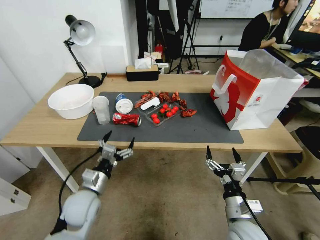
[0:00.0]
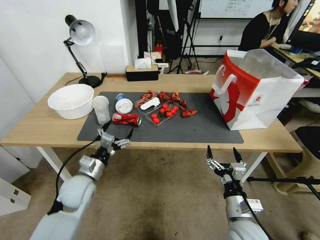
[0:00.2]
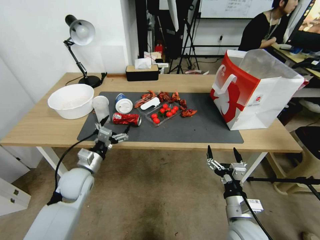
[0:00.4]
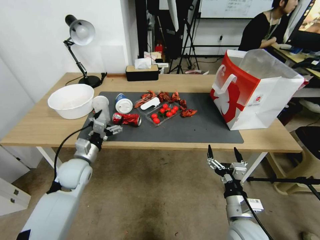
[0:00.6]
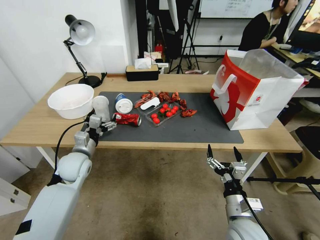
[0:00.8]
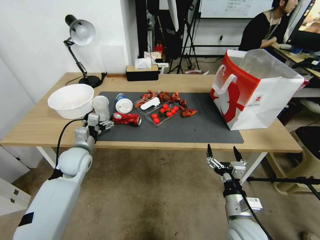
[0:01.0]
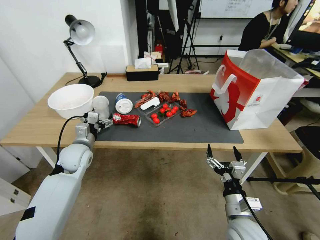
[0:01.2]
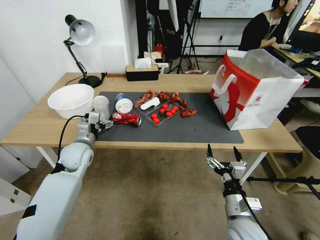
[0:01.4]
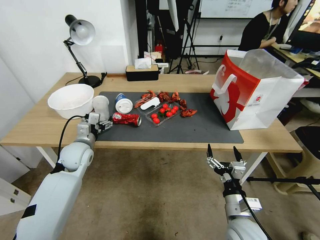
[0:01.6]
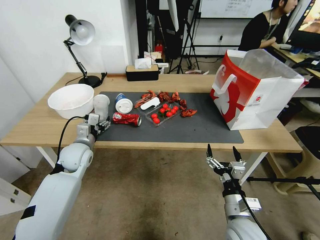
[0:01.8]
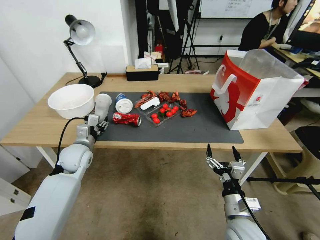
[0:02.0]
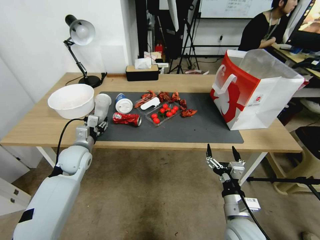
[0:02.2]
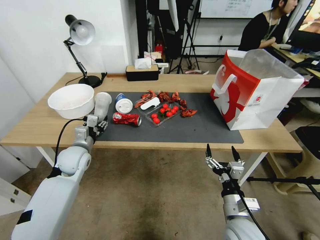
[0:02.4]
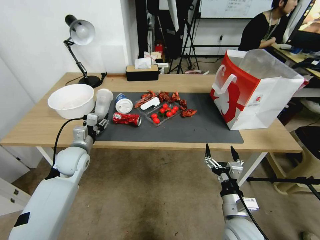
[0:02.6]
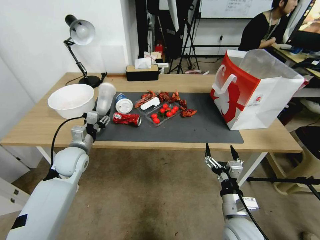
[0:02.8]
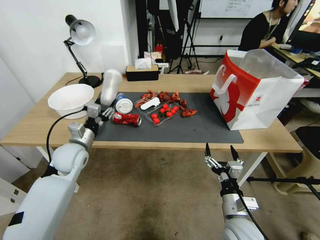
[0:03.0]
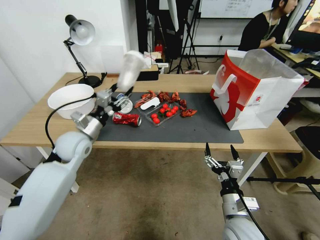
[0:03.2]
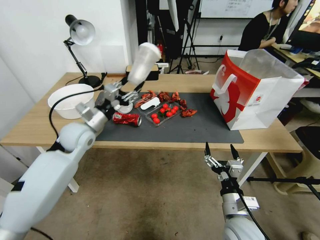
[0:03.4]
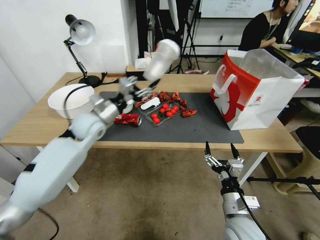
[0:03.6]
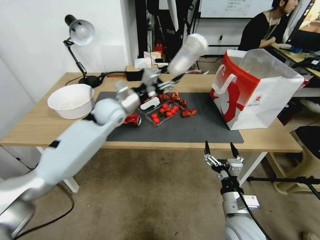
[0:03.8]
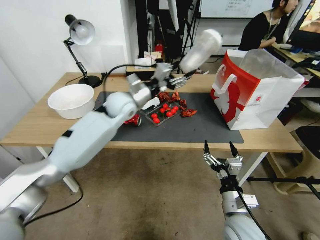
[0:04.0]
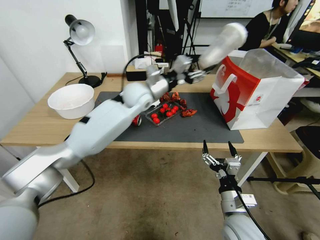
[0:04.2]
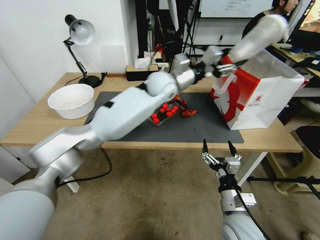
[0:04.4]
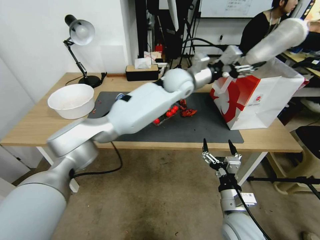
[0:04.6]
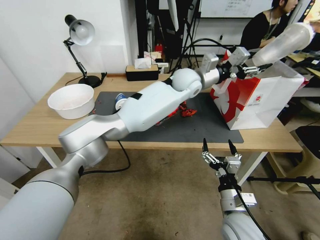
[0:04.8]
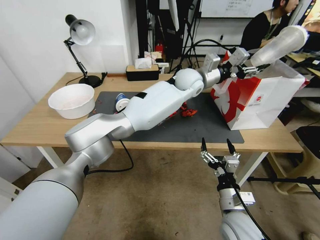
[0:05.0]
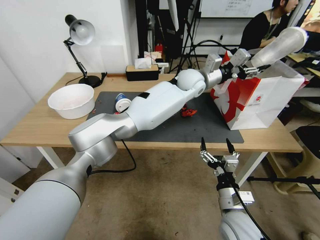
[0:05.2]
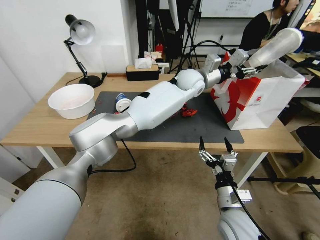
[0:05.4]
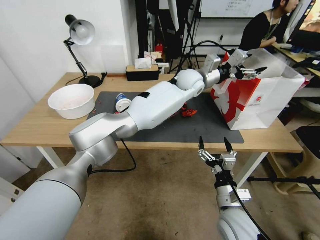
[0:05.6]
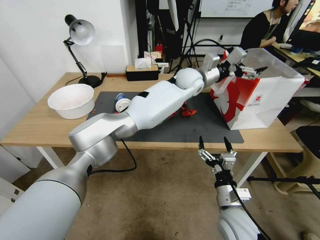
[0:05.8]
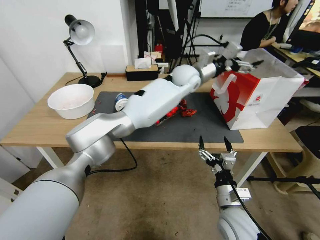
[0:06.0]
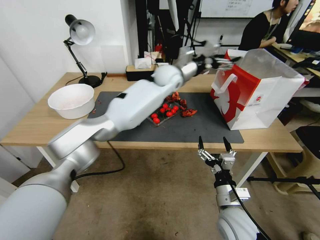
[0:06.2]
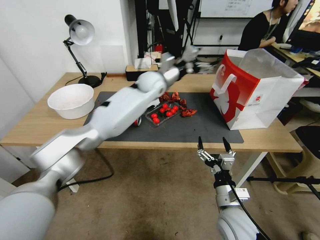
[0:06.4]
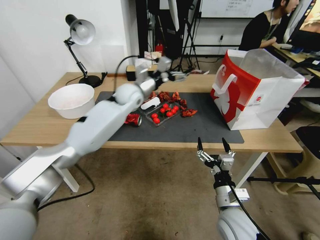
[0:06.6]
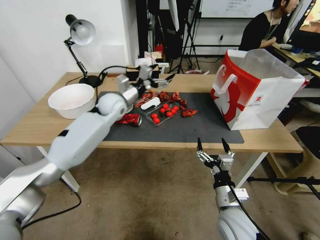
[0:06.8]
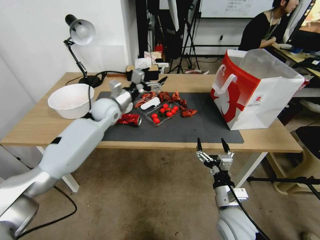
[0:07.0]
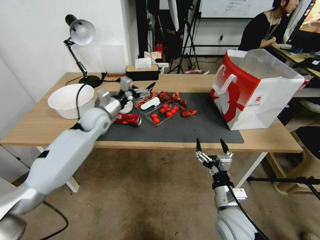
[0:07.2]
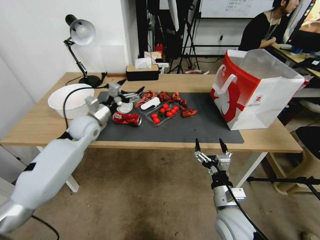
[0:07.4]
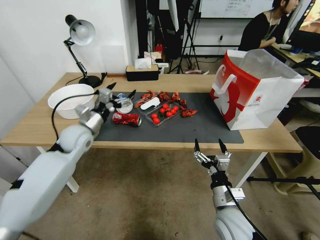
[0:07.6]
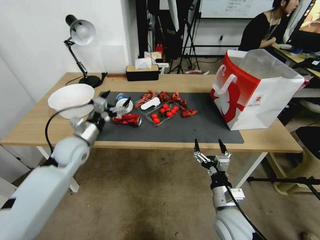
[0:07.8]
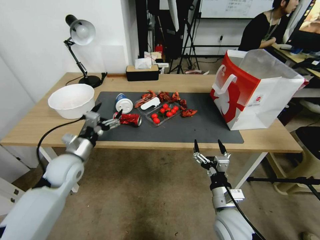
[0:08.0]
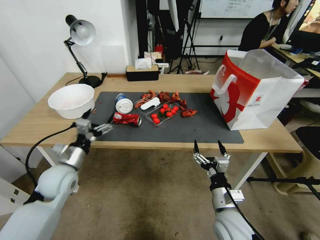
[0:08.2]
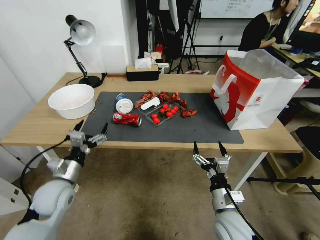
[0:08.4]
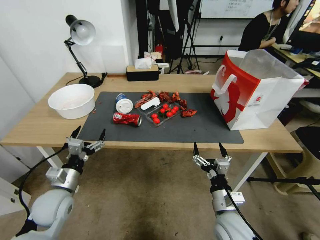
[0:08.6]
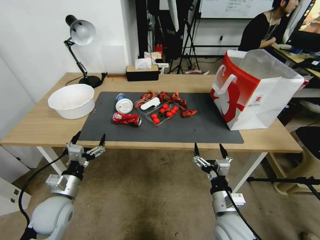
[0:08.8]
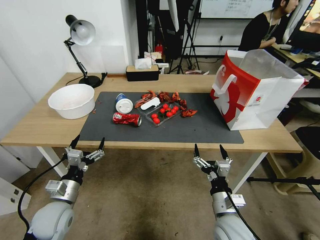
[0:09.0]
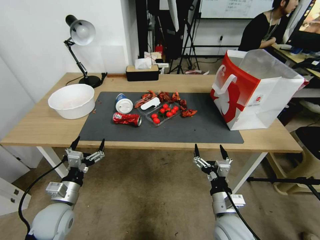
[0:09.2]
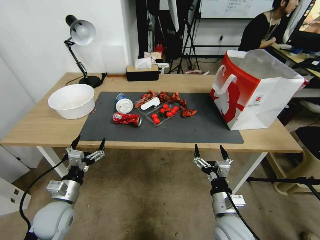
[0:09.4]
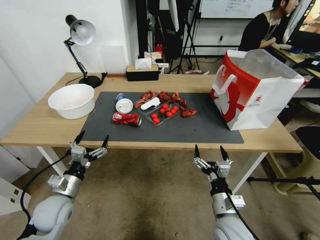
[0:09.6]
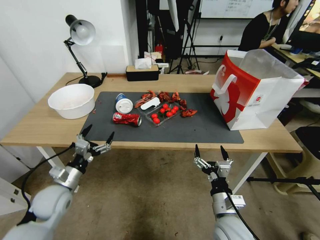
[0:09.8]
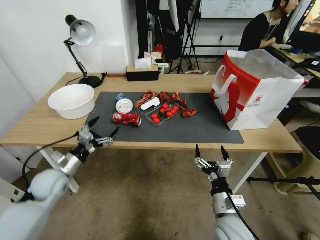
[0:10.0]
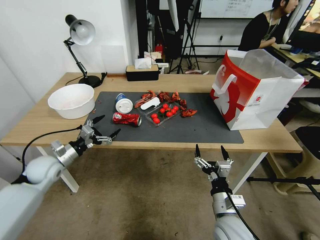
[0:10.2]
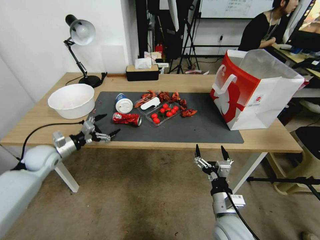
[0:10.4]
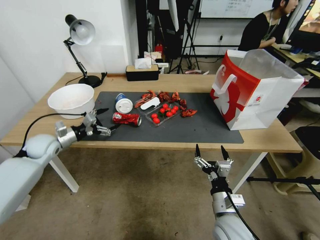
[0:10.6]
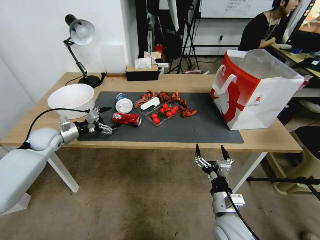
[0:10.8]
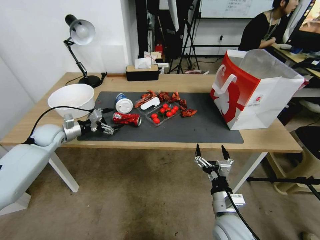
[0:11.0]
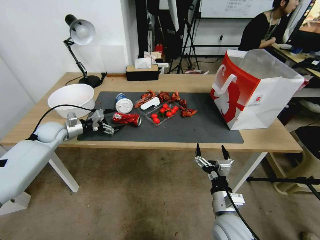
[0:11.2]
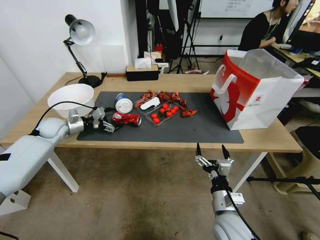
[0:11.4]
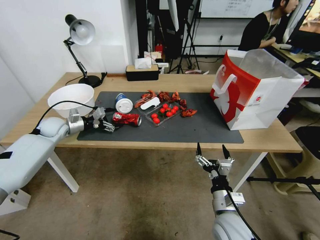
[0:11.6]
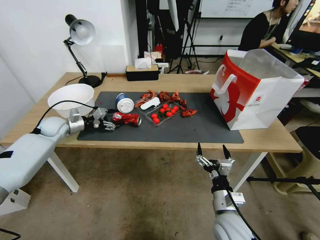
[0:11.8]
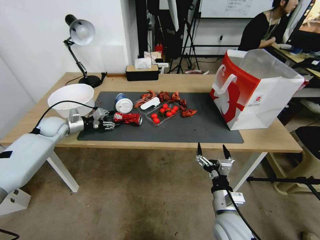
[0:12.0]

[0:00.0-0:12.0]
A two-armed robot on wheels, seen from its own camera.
0:00.0 to 0:01.6: The left gripper heads forward, covering roughly 15 cm.
0:01.6 to 0:03.0: The left gripper closes its fingers.
0:03.0 to 0:04.4: The left gripper moves to the right, upward and forward, approximately 40 cm.
0:04.4 to 0:06.0: The left gripper travels to the right by about 10 cm, and opens.
0:06.0 to 0:07.6: The left gripper is displaced to the left and backward by about 40 cm.
0:07.6 to 0:09.0: The left gripper heads backward and downward, covering some 25 cm.
0:09.0 to 0:10.4: The left gripper travels forward and to the left by approximately 20 cm.
0:10.4 to 0:12.0: The left gripper travels forward by about 10 cm, and closes up.

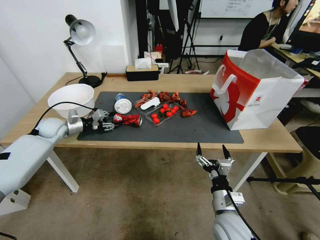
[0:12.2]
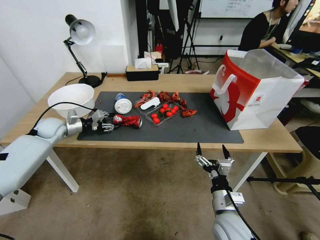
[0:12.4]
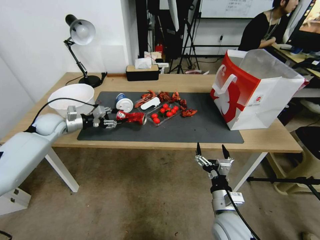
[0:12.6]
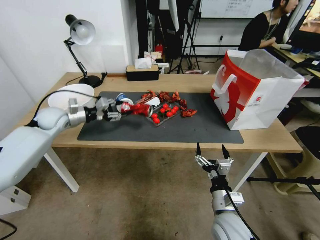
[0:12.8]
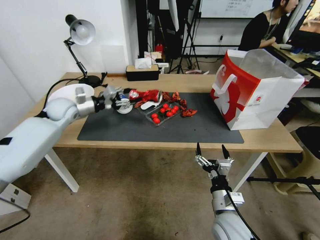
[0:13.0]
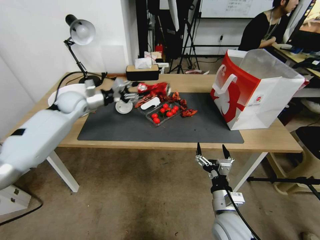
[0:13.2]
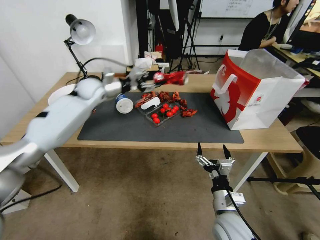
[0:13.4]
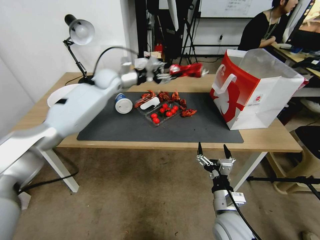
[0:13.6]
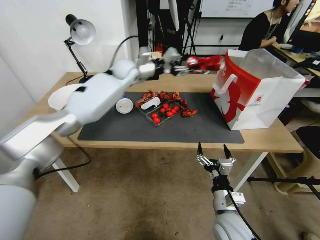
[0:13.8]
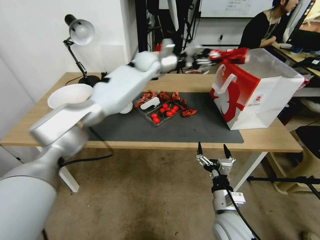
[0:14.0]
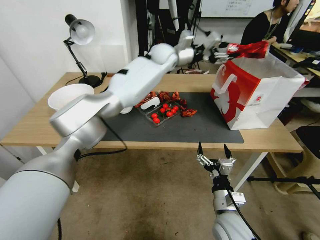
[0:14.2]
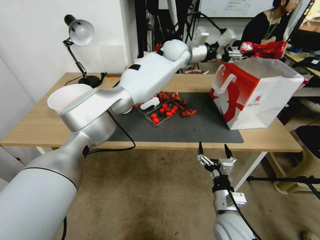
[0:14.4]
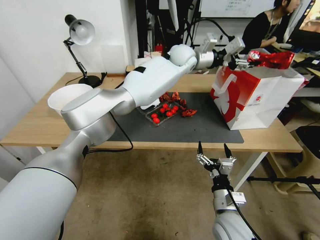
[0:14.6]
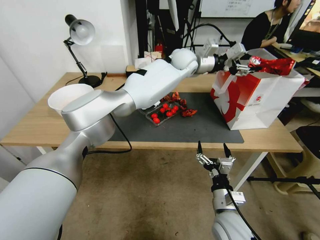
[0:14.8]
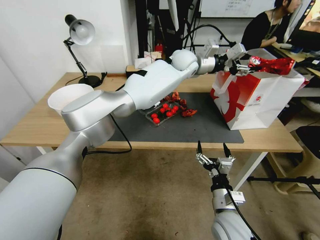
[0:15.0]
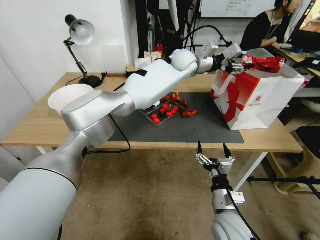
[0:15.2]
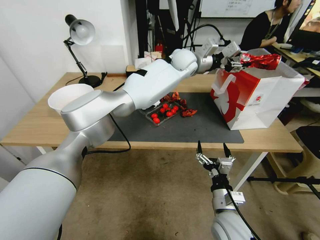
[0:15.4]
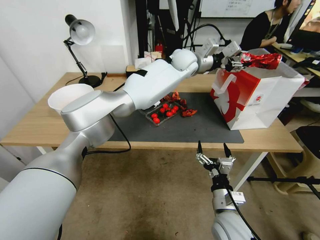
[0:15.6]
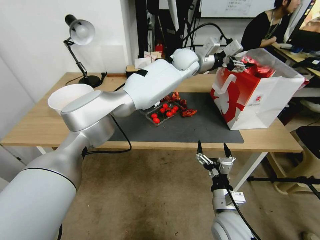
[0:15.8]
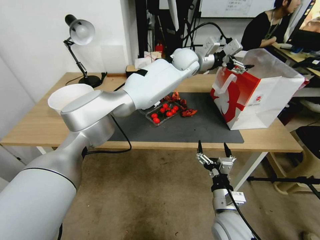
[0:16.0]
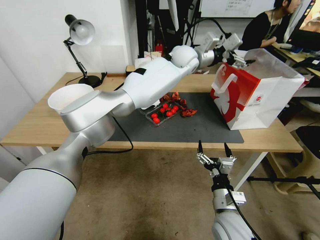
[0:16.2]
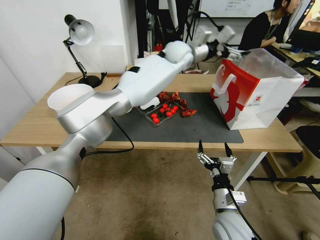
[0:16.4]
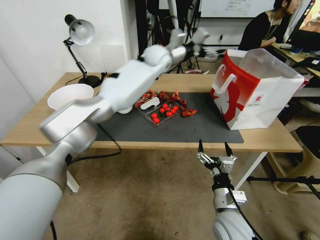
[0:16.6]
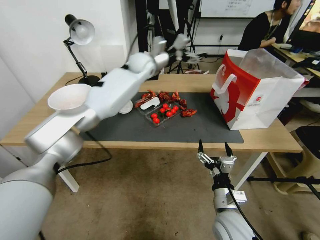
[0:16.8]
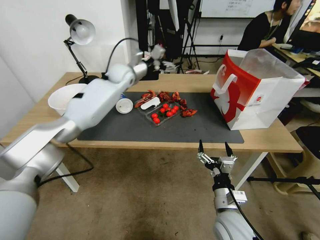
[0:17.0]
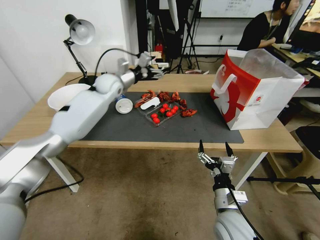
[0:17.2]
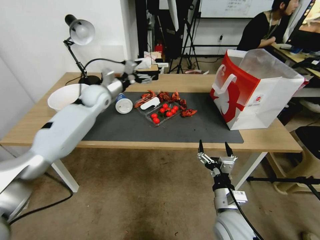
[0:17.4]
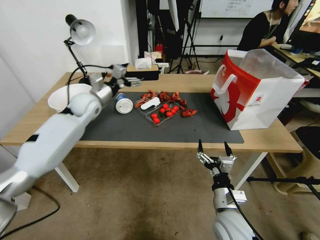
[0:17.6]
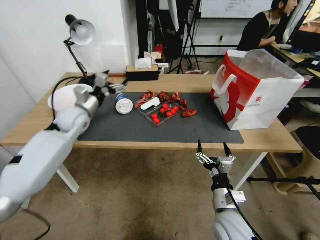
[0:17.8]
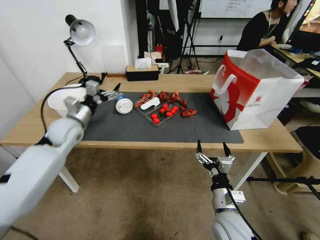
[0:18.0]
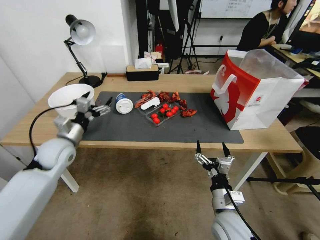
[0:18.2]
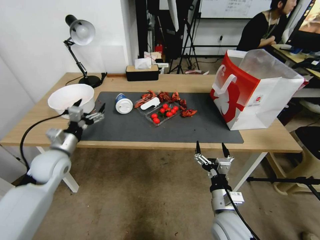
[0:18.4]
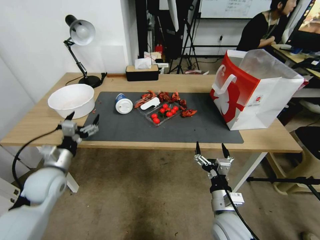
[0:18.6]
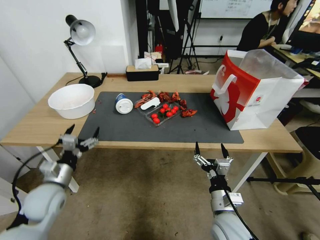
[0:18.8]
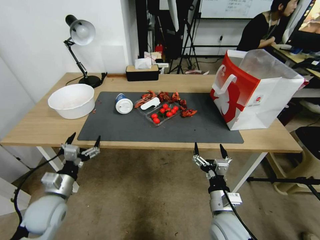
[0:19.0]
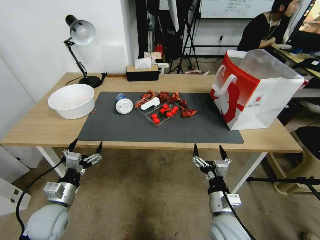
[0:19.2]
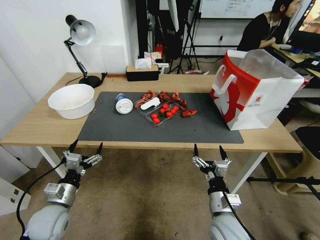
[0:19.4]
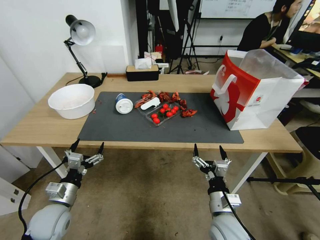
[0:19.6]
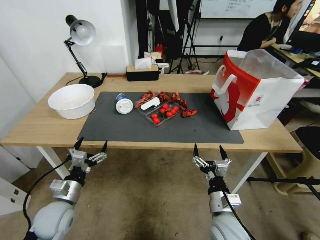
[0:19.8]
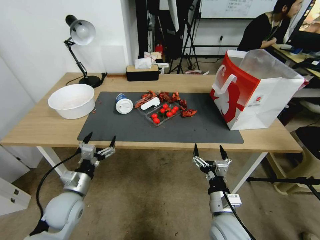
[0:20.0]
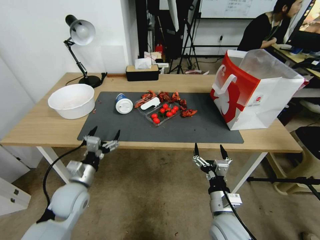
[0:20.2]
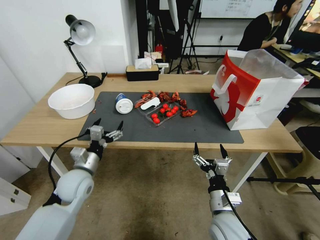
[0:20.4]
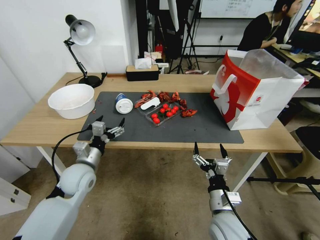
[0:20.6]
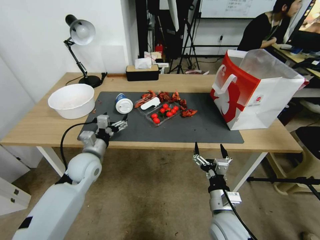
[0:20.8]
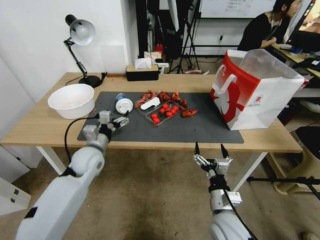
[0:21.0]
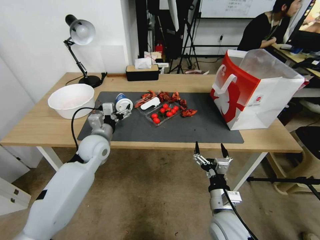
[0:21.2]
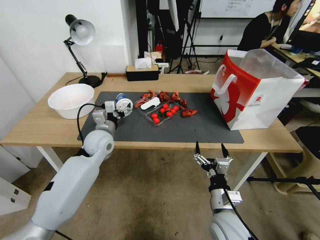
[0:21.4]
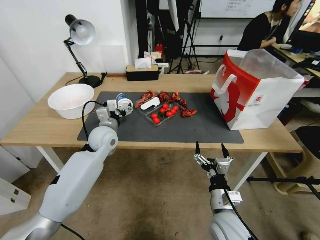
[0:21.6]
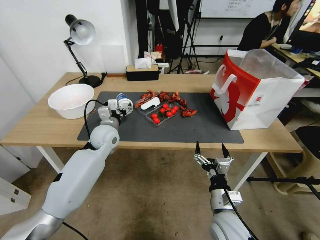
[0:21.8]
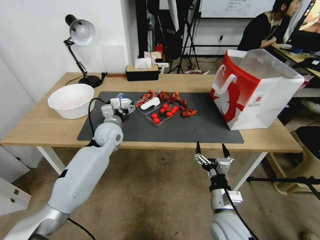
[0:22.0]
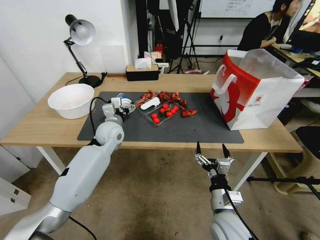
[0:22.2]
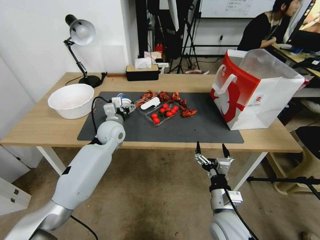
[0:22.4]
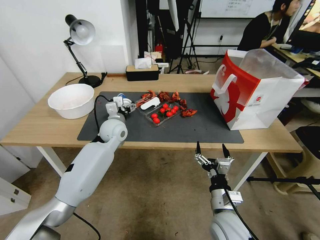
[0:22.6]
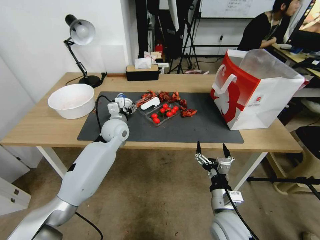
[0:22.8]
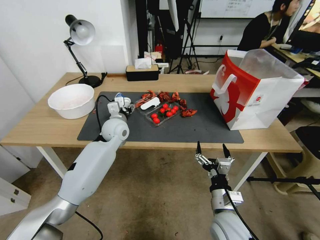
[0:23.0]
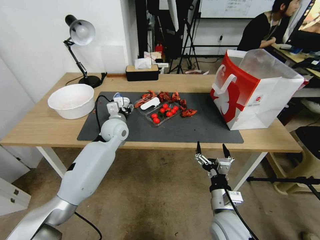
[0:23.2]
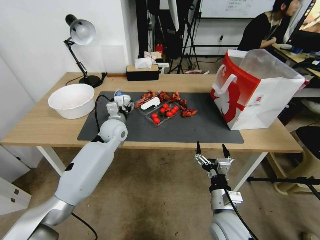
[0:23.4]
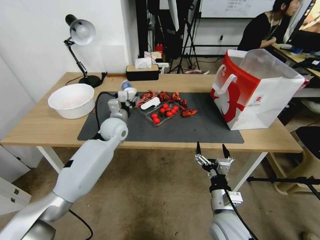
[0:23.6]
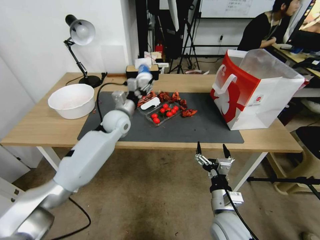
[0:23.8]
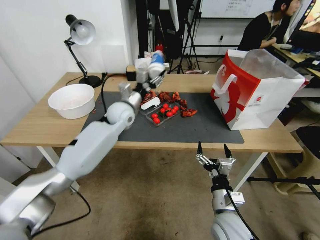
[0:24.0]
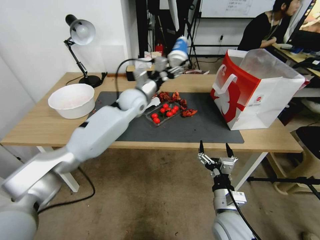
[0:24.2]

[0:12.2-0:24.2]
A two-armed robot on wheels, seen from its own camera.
0:12.2 to 0:13.8: The left gripper travels to the right, upward and forward by about 35 cm.
0:13.8 to 0:15.2: The left gripper goes approximately 25 cm to the right.
0:15.2 to 0:16.6: The left gripper goes roughly 10 cm to the left, and opens up.
0:16.6 to 0:18.2: The left gripper travels to the left, backward and downward by approximately 40 cm.
0:18.2 to 0:19.8: The left gripper moves backward and downward, some 25 cm.
0:19.8 to 0:21.2: The left gripper travels forward, upward and to the right by some 20 cm.
0:21.2 to 0:22.6: The left gripper heads forward and to the right, covering roughly 10 cm.
0:22.6 to 0:24.2: The left gripper moves upward, to the right and forward, about 15 cm, and closes up.
